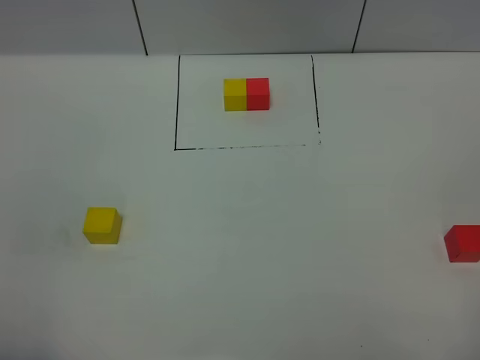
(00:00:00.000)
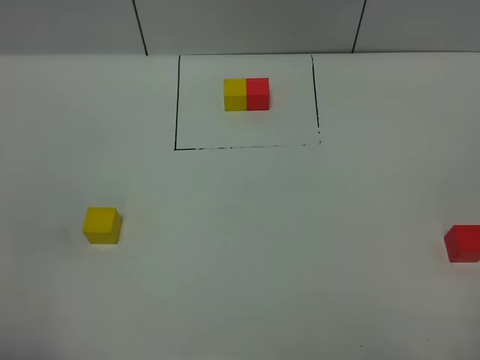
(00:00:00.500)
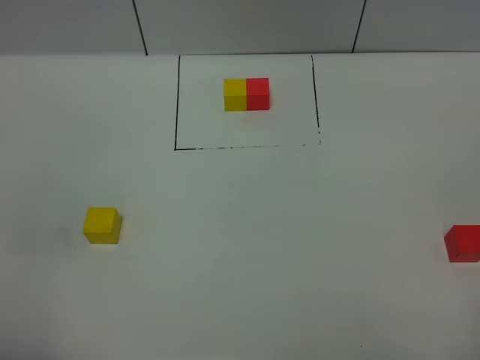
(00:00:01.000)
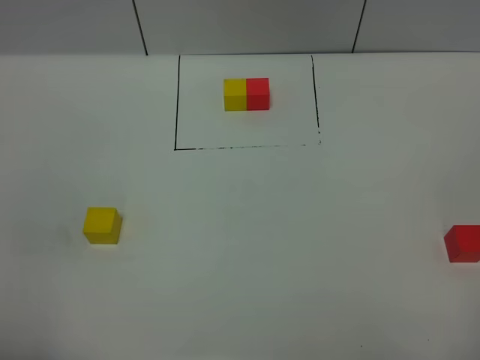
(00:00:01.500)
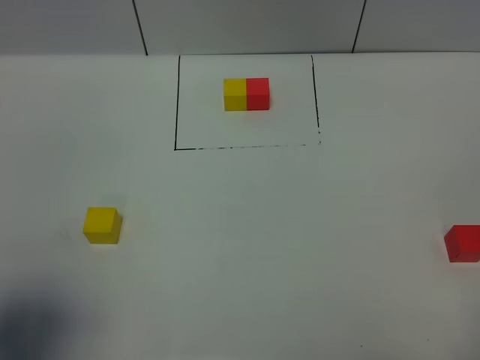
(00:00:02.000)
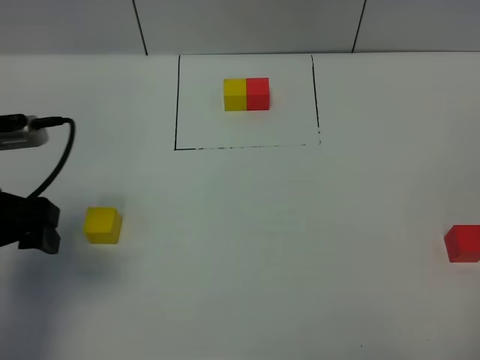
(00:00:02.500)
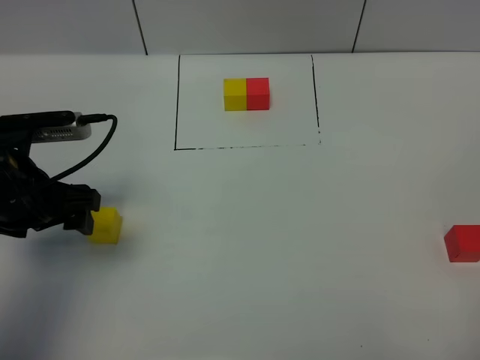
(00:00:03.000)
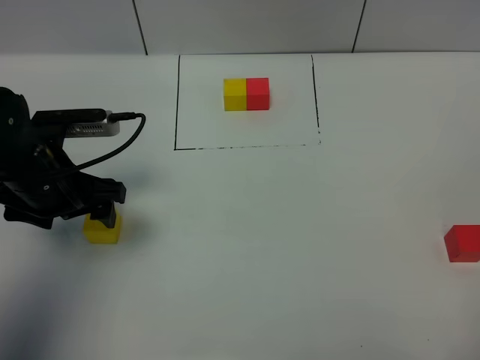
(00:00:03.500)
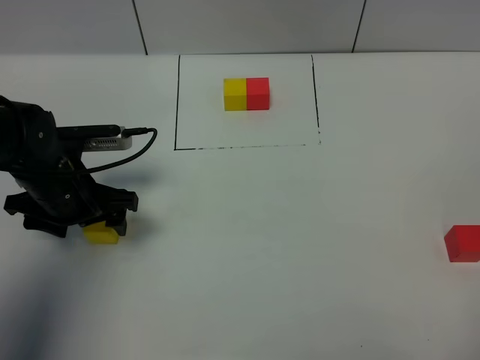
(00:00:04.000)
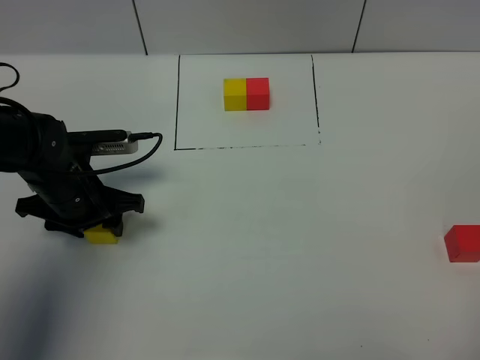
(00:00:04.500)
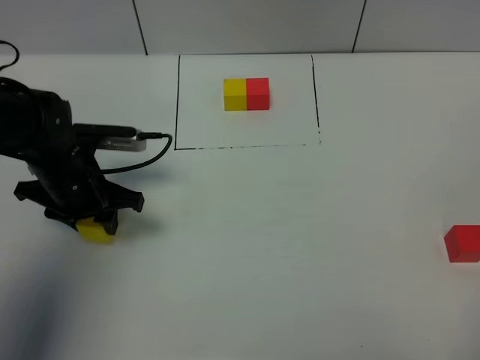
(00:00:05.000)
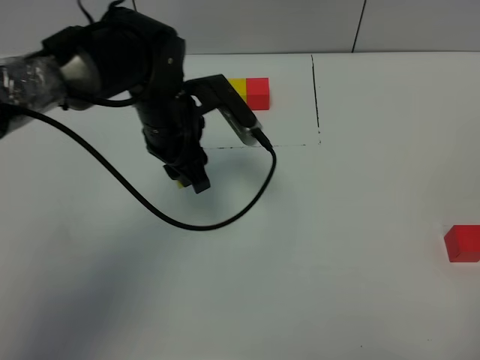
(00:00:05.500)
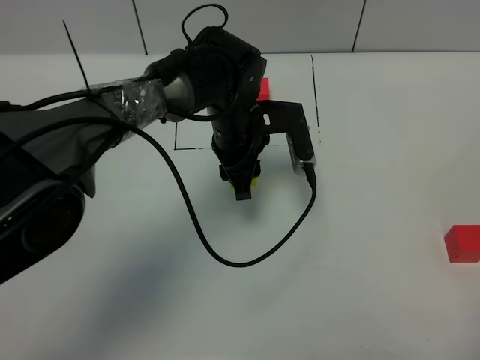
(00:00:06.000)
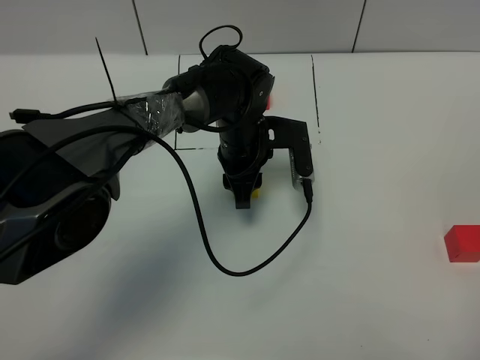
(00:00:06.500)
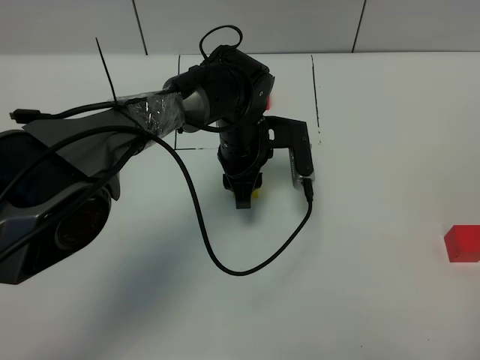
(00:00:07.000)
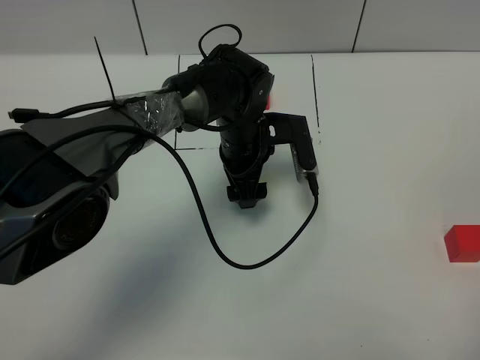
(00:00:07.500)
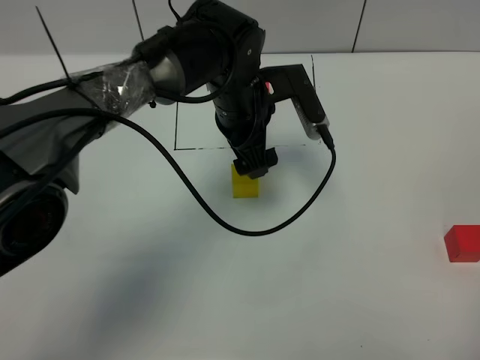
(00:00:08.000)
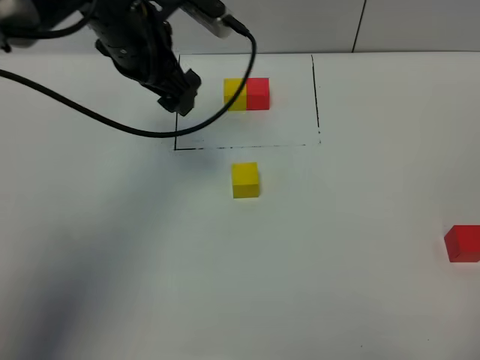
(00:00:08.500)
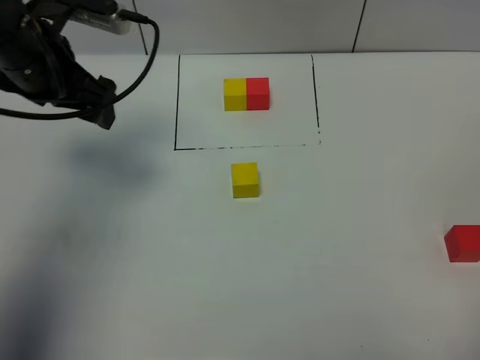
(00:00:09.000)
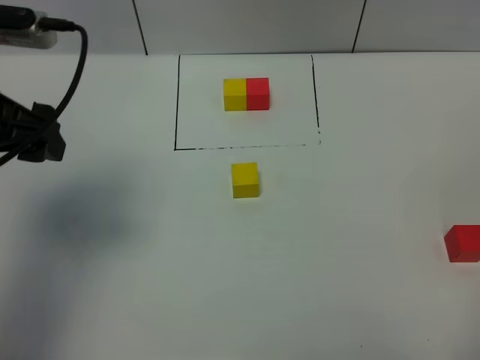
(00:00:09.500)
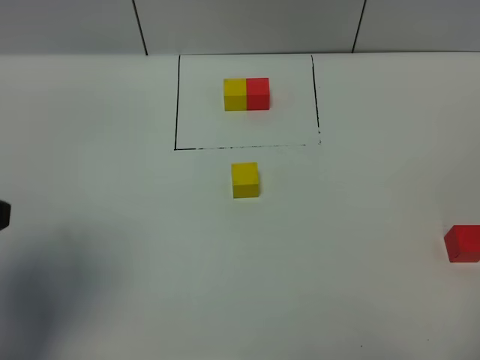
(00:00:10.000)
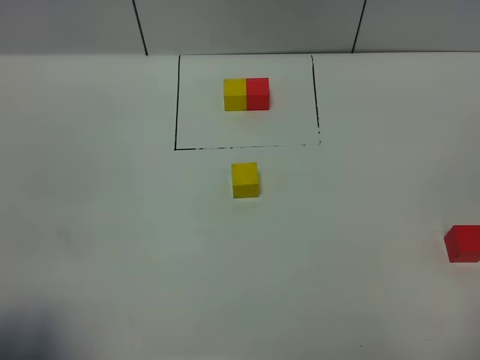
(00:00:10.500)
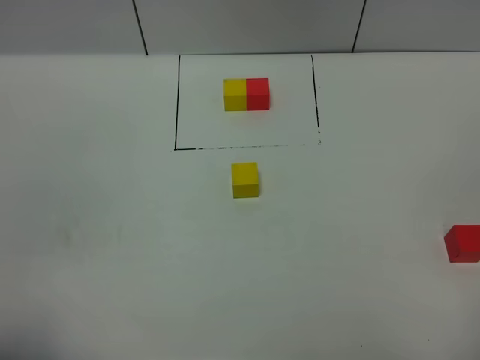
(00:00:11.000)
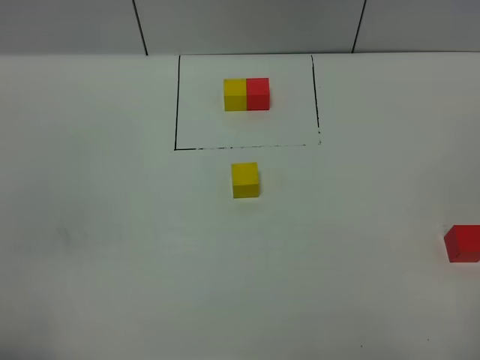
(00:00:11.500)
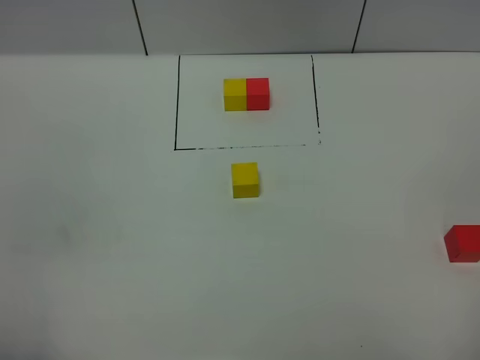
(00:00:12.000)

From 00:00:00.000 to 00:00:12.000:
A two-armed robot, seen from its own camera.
Task of the whole recording: According to the building block template in front, assemble the scattered blocks together.
Step, from 00:00:02.500 to 00:00:07.500: Put the yellow cube in the center of the table.
From 00:00:00.000 to 00:00:02.000: The left gripper is displaced forward by approximately 10 cm.
From 00:00:02.000 to 00:00:04.000: The left gripper heads forward and downward, covering about 25 cm.
From 00:00:04.000 to 00:00:06.000: The left gripper travels to the right by roughly 20 cm, and closes.
From 00:00:06.000 to 00:00:08.000: The left gripper opens up.
From 00:00:08.000 to 00:00:10.000: The left gripper heads to the left, backward and upward, covering roughly 40 cm.
From 00:00:10.000 to 00:00:12.000: The left gripper heads backward, covering roughly 15 cm.

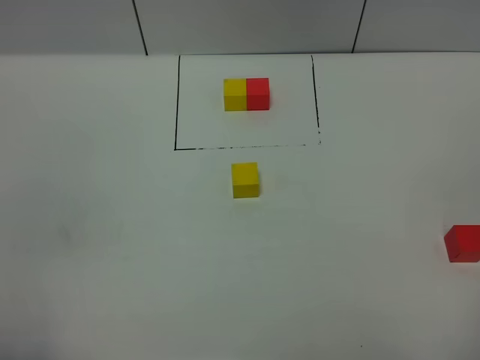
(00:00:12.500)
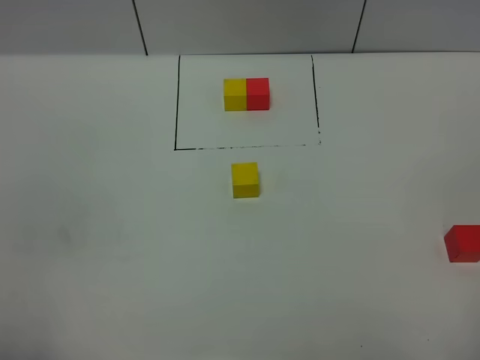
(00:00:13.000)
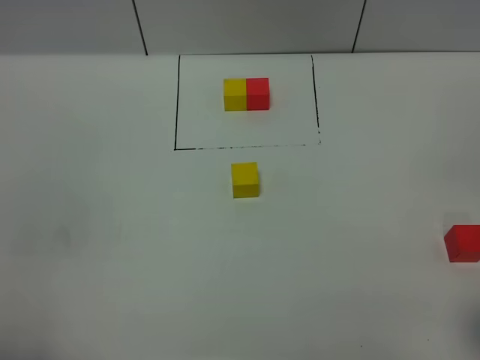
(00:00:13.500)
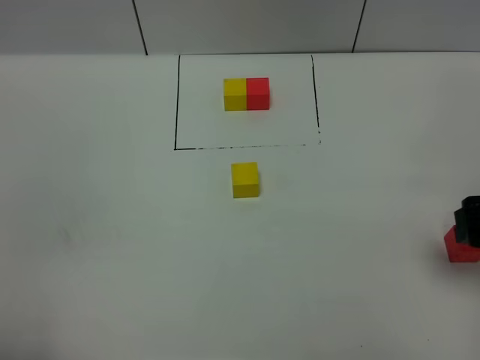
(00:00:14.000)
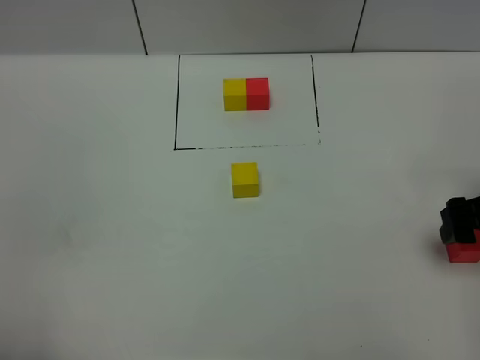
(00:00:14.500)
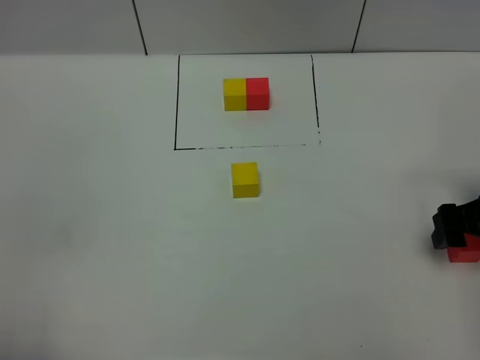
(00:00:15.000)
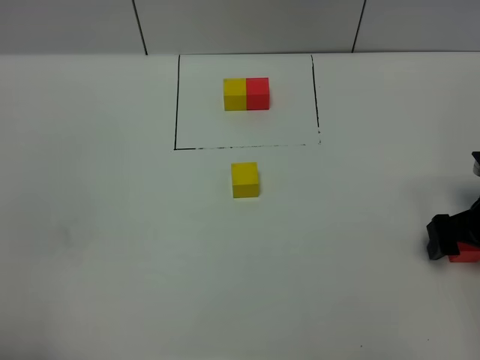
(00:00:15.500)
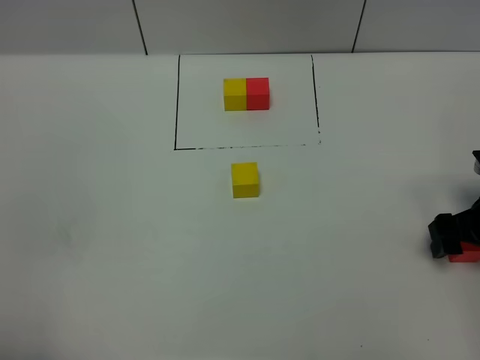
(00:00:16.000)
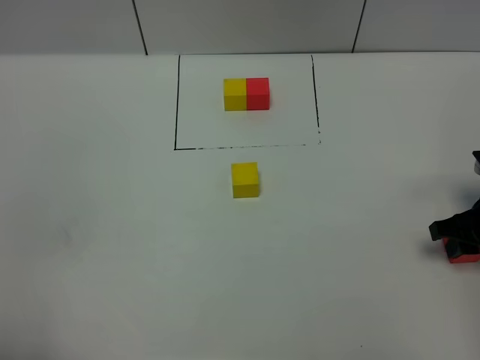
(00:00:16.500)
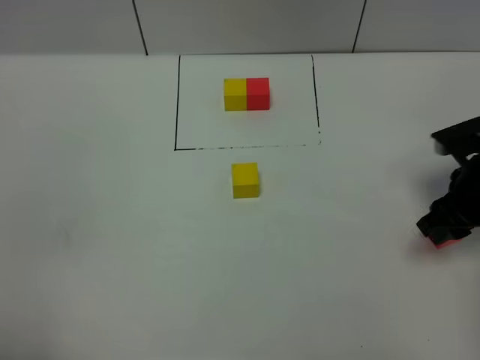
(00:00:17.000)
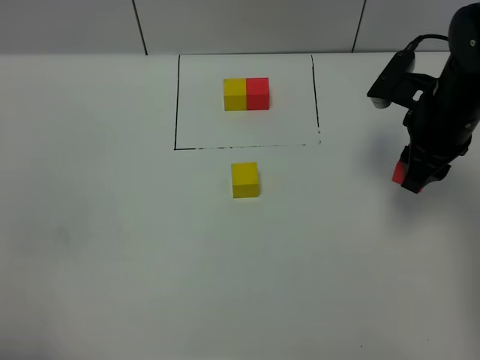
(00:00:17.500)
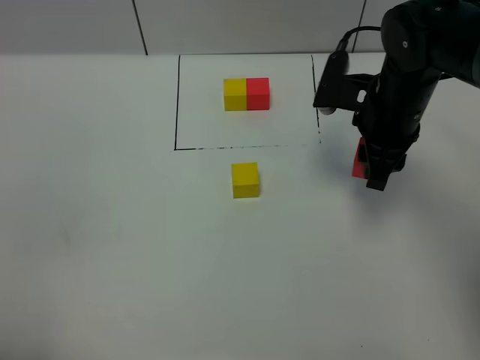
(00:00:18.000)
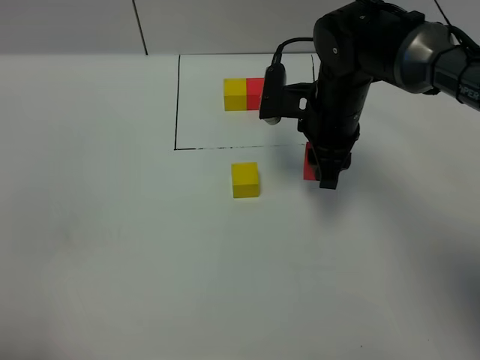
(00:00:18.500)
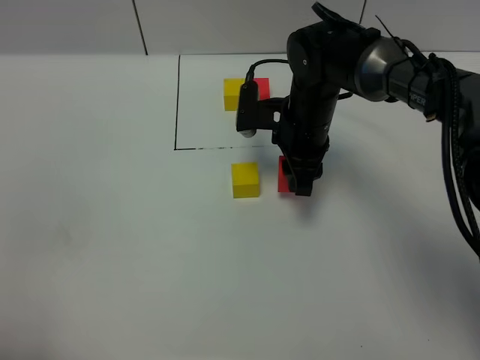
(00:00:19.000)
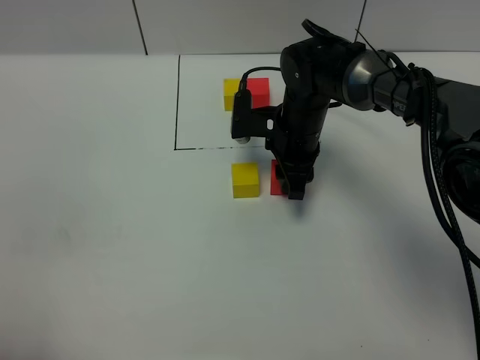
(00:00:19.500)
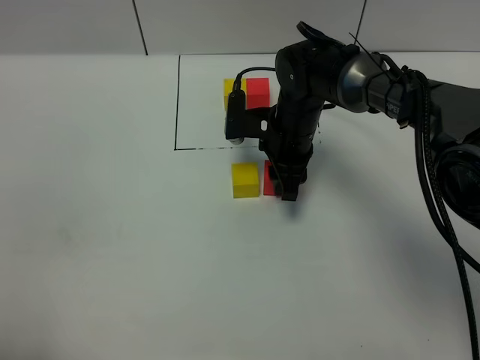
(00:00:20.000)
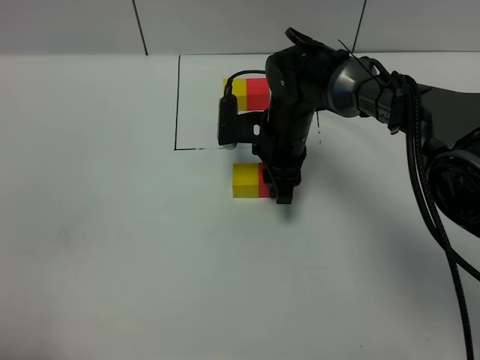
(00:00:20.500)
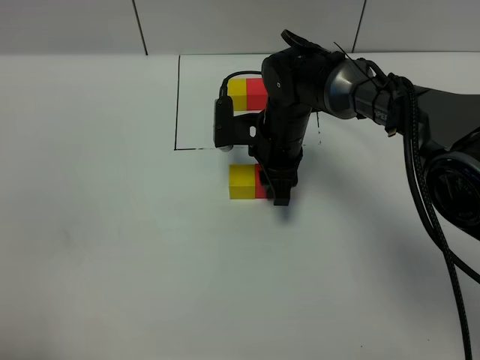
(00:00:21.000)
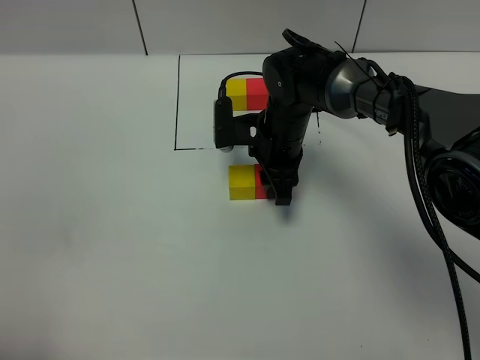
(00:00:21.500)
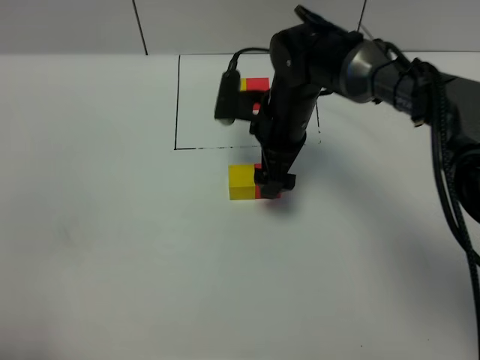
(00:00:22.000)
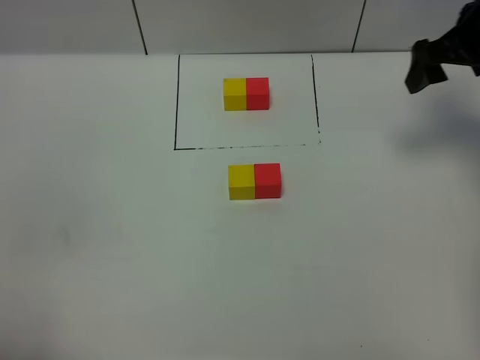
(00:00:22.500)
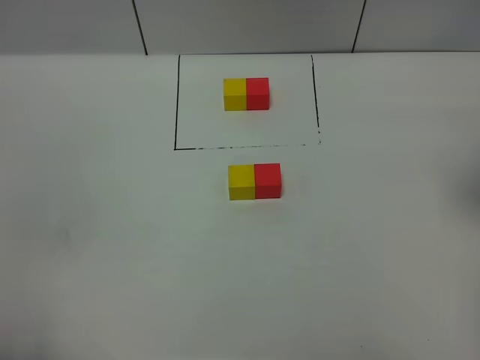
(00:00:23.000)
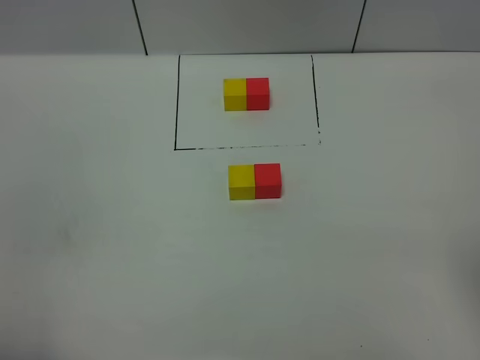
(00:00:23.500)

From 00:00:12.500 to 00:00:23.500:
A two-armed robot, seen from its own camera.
Task of the whole recording: According to the building block template in front, assemble the scattered blocks together.
Step, from 00:00:12.500 to 00:00:22.000: Put the red cube on the right of the yellow cube.
From 00:00:12.500 to 00:00:14.500: The right gripper shifts approximately 25 cm forward.
From 00:00:14.500 to 00:00:16.000: The right gripper shifts roughly 5 cm downward.
From 00:00:16.000 to 00:00:18.000: The right gripper is displaced to the left, upward and forward by roughly 20 cm, and closes.
From 00:00:18.000 to 00:00:20.000: The right gripper heads to the left and downward, covering approximately 15 cm.
From 00:00:20.000 to 00:00:21.500: The grippers make only small movements.
From 00:00:21.500 to 00:00:23.500: The right gripper goes about 40 cm backward, to the right and upward, and opens up.

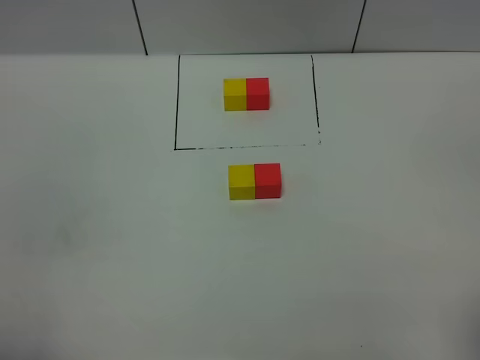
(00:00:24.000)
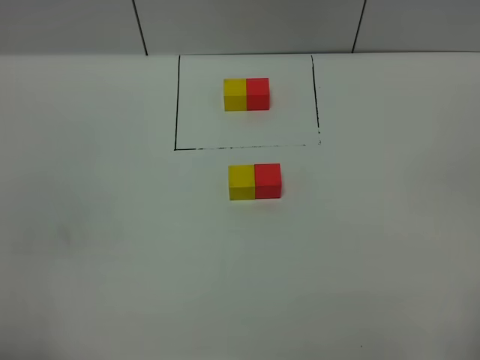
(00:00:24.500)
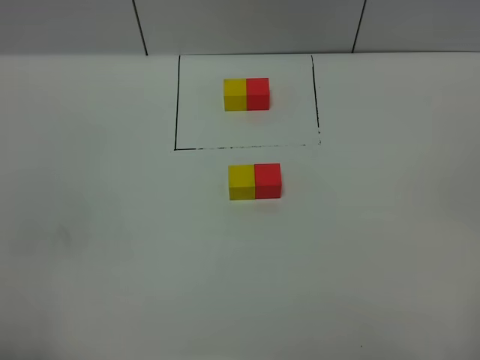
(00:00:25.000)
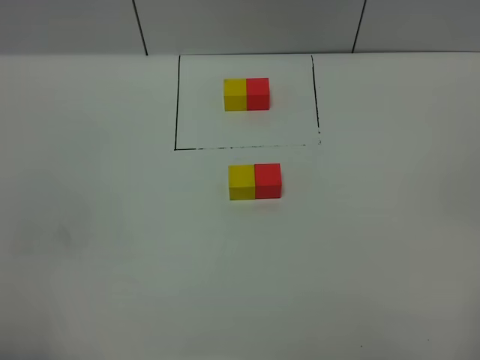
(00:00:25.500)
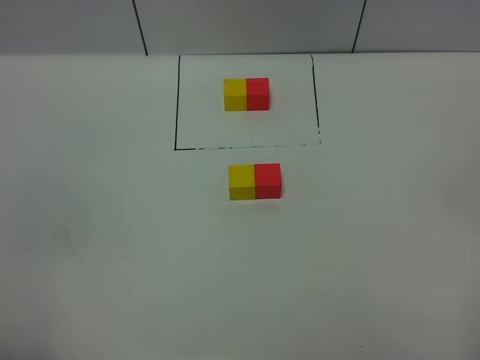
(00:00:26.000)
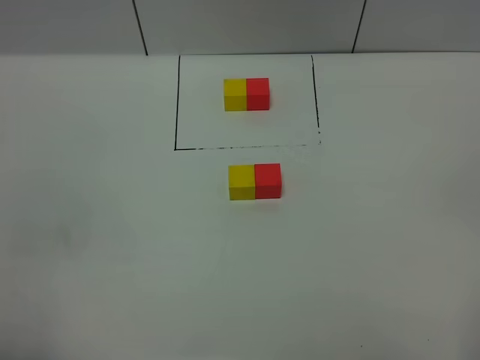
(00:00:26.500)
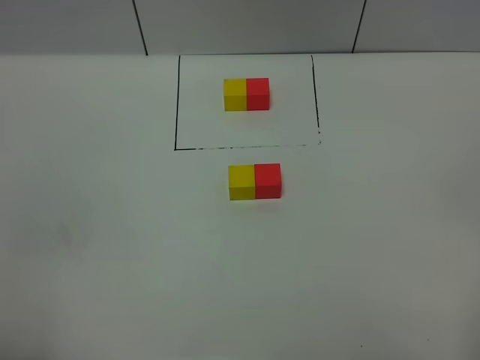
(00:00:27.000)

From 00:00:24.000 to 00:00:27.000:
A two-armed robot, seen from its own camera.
Task of the whole recording: According to the building block template in front, assemble the scattered blocks together.
From 00:00:25.500 to 00:00:27.000: The two grippers keep their place.
